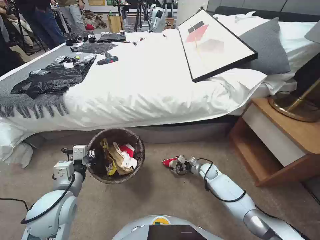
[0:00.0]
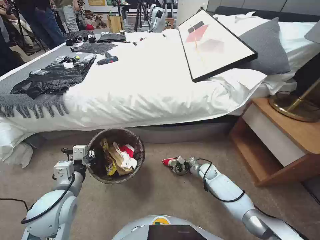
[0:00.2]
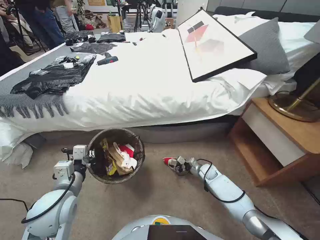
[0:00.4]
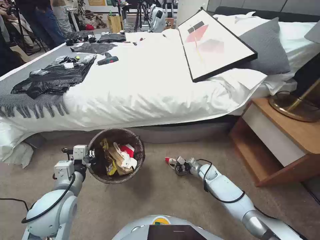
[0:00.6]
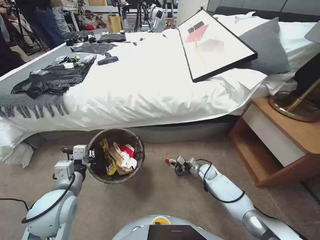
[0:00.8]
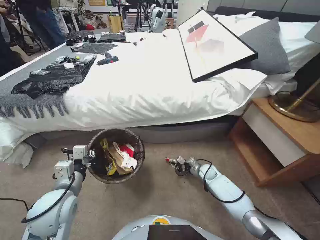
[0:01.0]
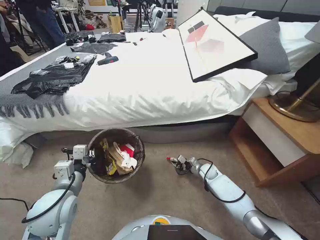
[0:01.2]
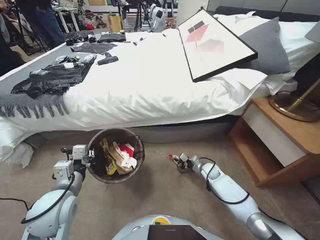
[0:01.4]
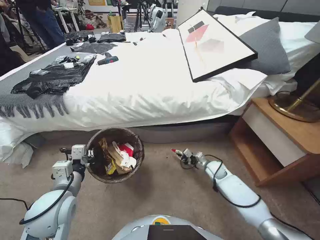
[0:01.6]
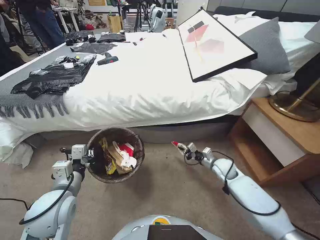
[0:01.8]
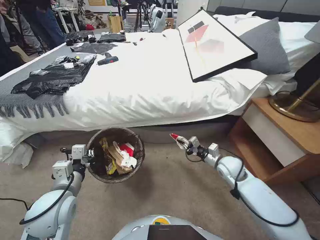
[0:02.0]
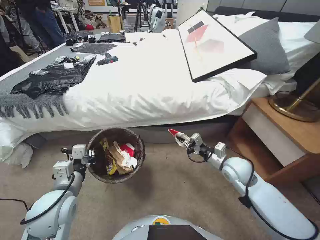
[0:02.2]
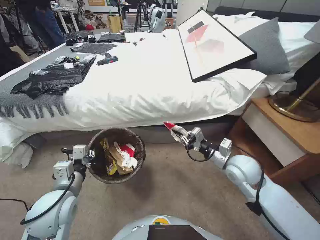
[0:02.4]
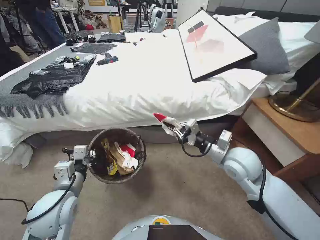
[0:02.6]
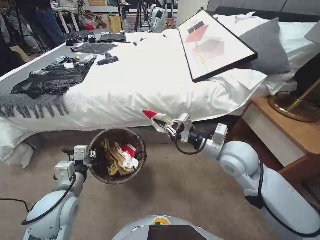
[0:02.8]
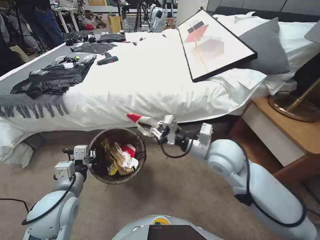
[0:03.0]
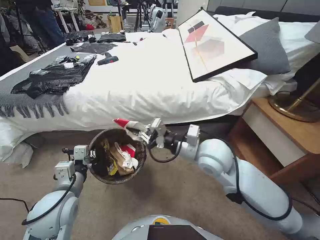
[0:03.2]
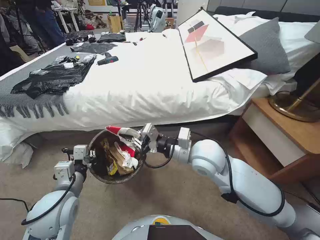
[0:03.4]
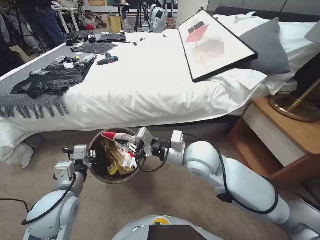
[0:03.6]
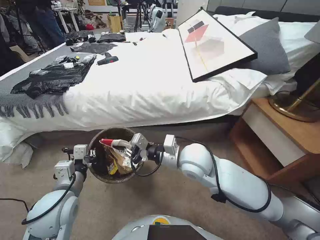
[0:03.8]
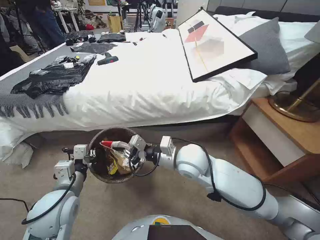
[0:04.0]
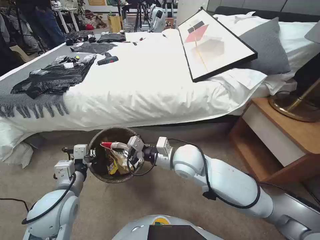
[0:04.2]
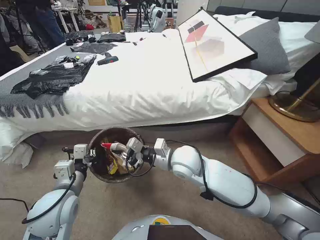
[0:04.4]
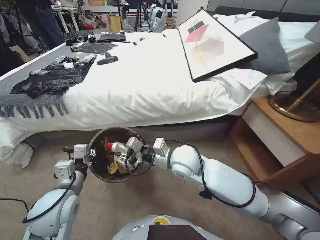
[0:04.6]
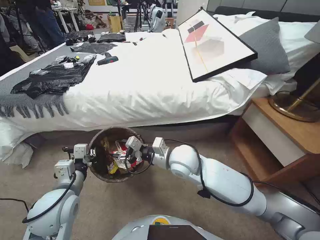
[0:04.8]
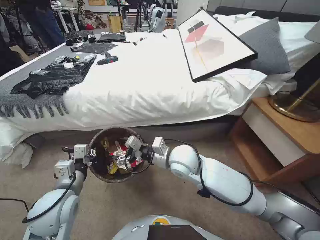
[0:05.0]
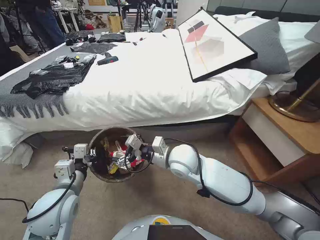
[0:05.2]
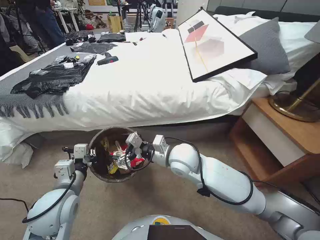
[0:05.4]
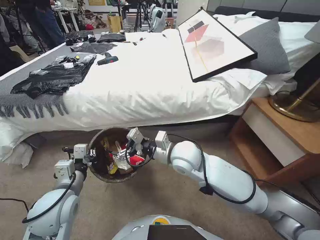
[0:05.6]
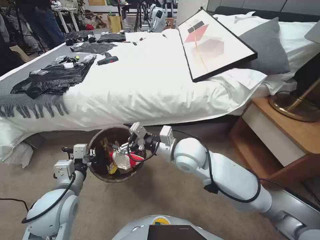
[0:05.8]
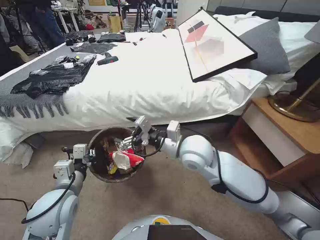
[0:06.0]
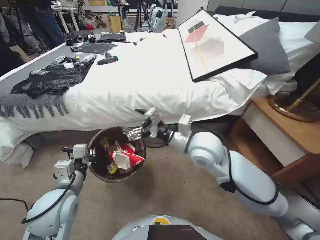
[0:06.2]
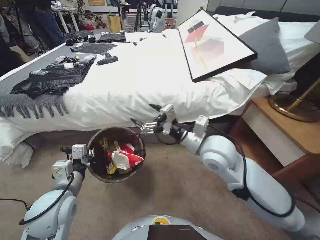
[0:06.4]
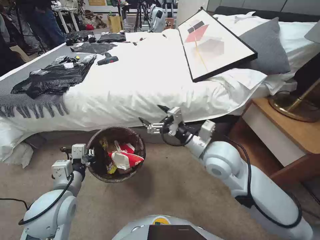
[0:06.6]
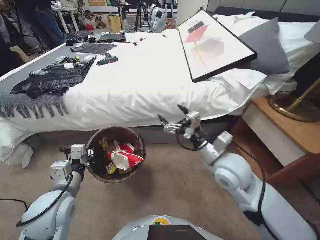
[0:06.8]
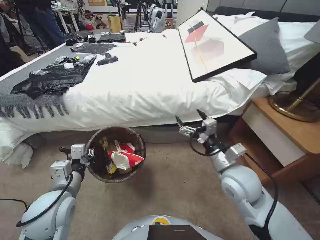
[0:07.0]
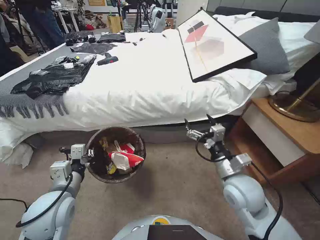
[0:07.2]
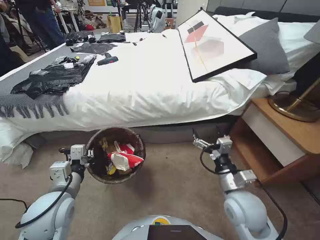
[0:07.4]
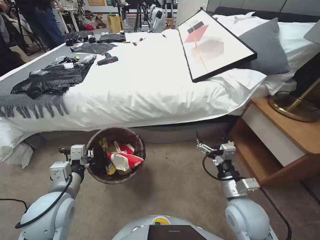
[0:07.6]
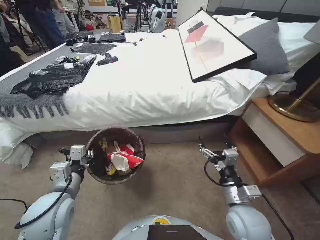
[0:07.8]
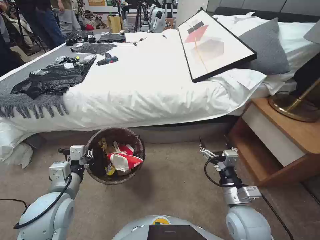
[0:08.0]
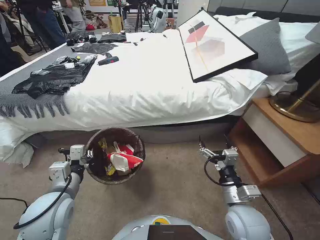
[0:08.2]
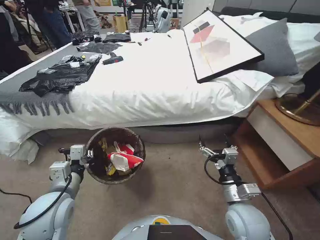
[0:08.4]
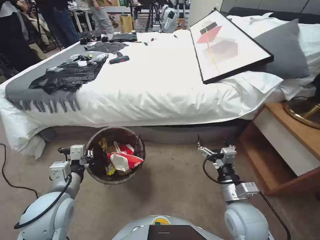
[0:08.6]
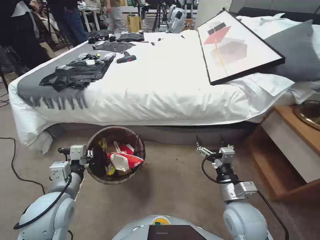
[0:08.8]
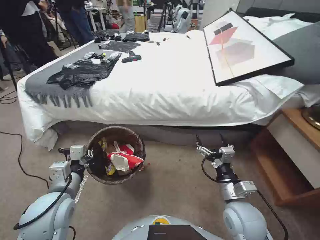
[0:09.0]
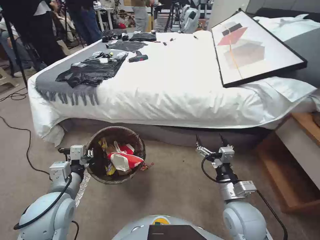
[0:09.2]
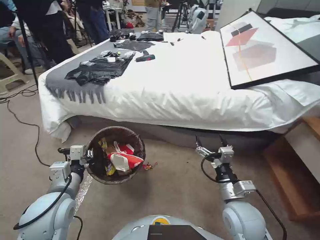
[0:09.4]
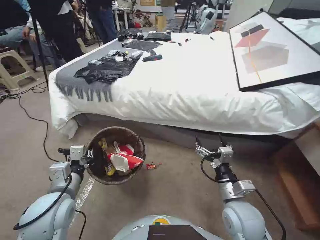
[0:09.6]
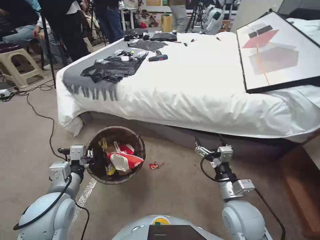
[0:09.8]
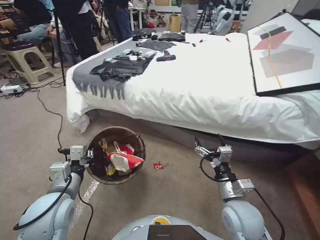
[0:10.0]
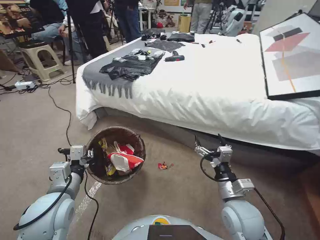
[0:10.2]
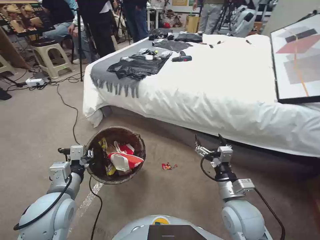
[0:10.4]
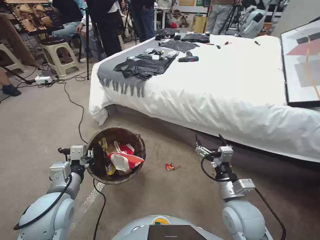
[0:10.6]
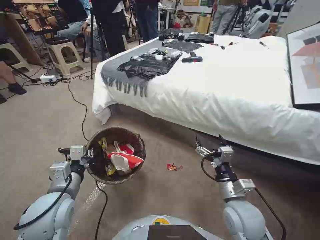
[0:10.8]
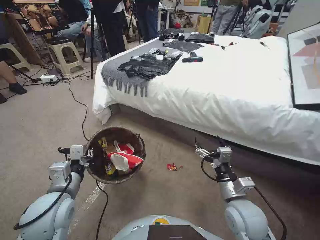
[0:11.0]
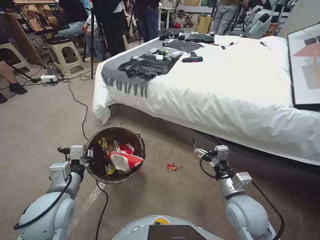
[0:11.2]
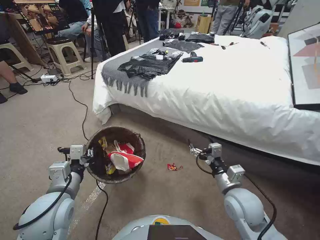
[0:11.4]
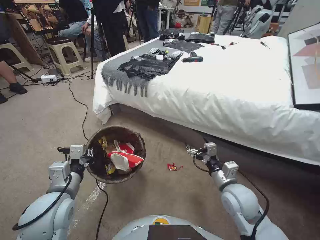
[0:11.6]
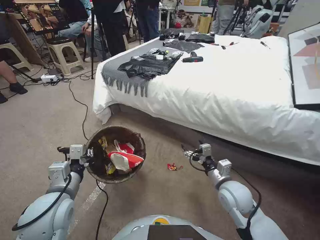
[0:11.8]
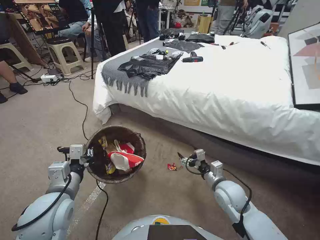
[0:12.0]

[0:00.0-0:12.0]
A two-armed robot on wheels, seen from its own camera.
Task of the whole recording: Pick up the trash bin, then pick up the garbage from the floor and place it into the trash bin.
0:00.0 to 0:01.6: The right gripper closes its fingers.
0:01.6 to 0:03.0: The right gripper is displaced upward by approximately 35 cm.
0:03.0 to 0:04.4: The right gripper goes some 15 cm to the left and downward.
0:04.4 to 0:06.0: The right gripper opens.
0:06.0 to 0:07.6: The right gripper shifts roughly 20 cm to the right, backward and downward.
0:10.4 to 0:12.0: The right gripper moves forward, approximately 5 cm.

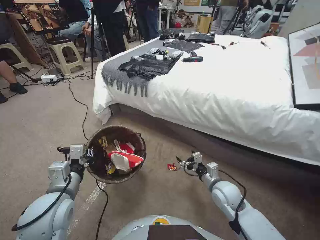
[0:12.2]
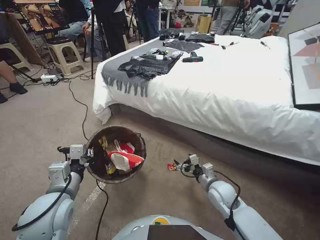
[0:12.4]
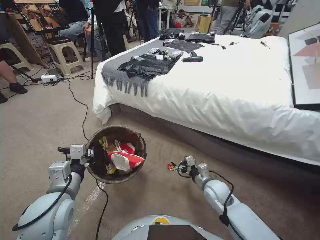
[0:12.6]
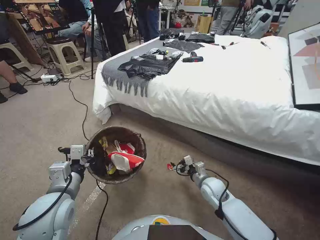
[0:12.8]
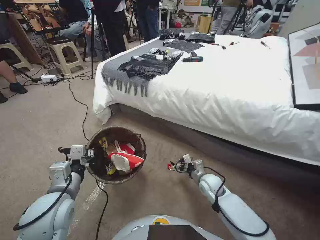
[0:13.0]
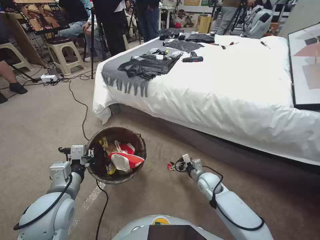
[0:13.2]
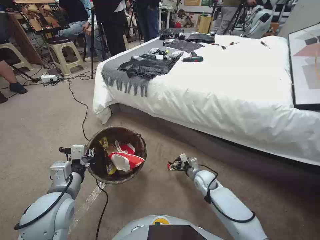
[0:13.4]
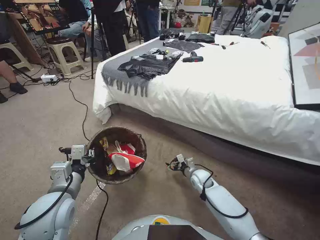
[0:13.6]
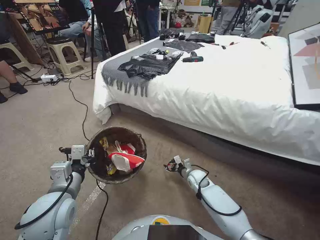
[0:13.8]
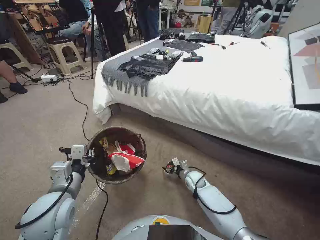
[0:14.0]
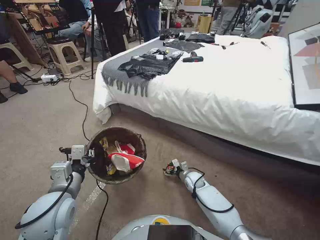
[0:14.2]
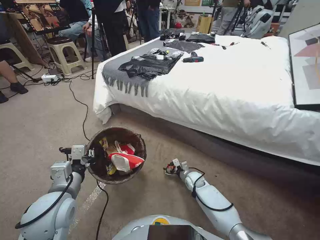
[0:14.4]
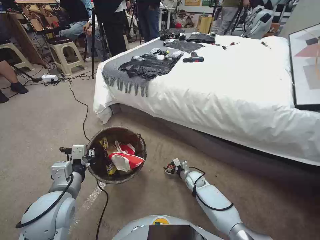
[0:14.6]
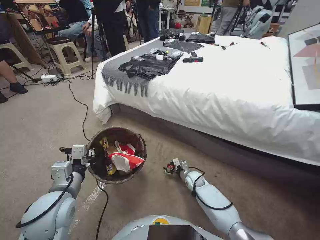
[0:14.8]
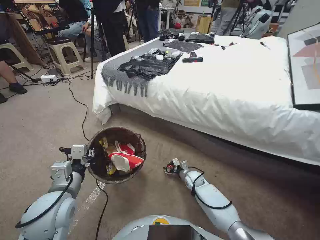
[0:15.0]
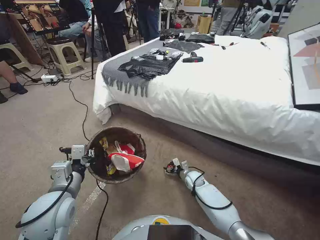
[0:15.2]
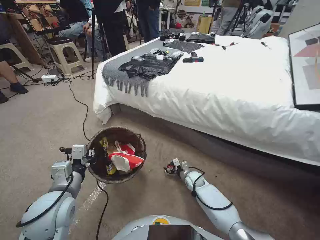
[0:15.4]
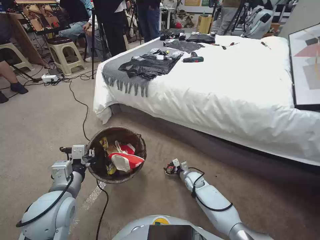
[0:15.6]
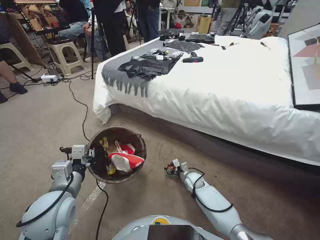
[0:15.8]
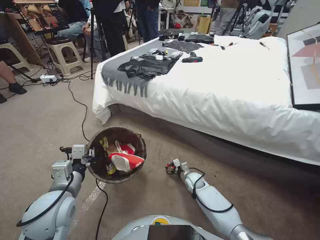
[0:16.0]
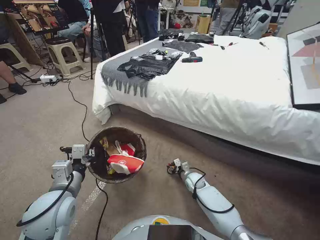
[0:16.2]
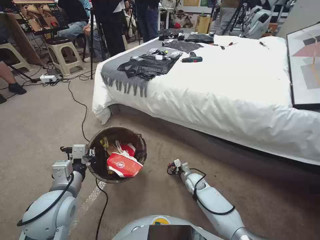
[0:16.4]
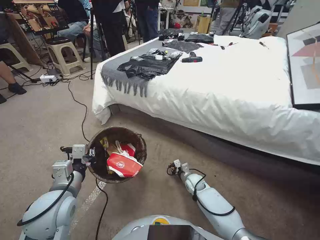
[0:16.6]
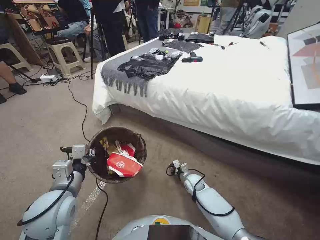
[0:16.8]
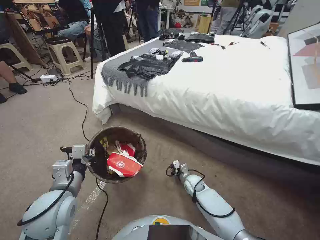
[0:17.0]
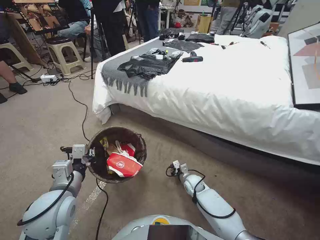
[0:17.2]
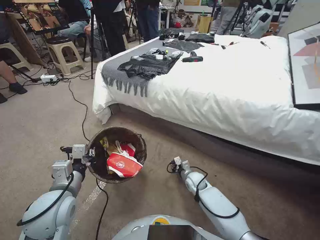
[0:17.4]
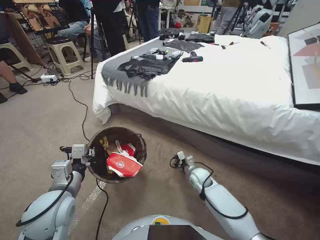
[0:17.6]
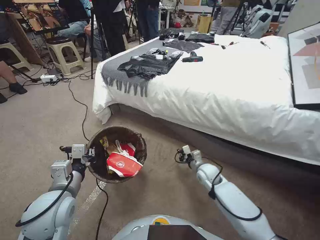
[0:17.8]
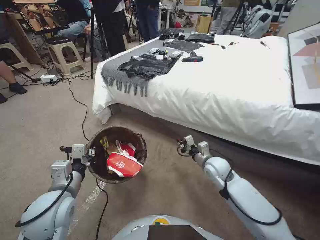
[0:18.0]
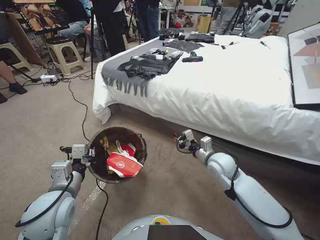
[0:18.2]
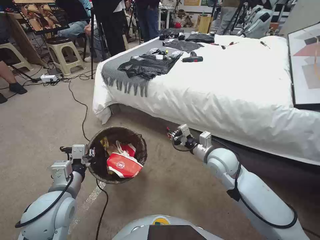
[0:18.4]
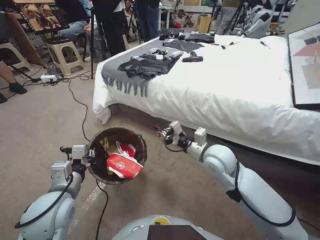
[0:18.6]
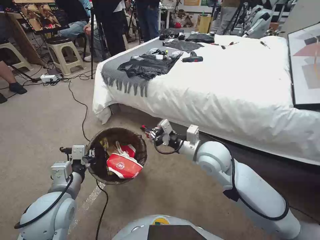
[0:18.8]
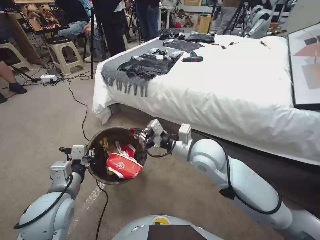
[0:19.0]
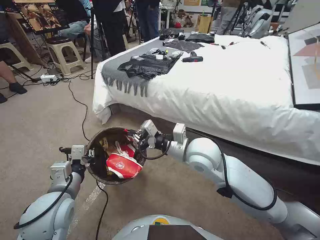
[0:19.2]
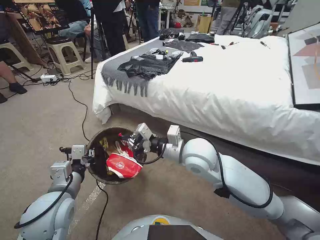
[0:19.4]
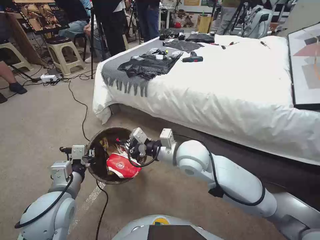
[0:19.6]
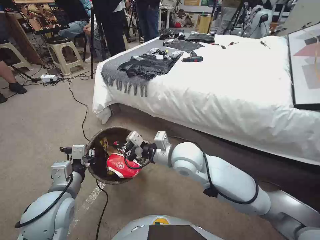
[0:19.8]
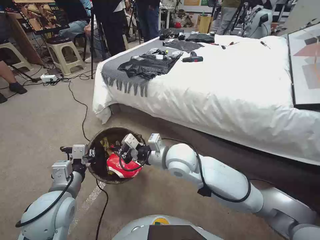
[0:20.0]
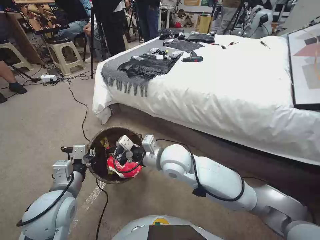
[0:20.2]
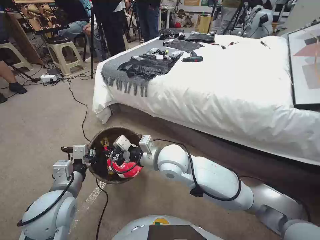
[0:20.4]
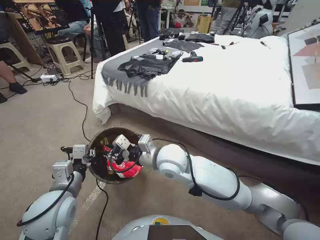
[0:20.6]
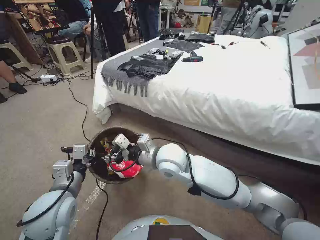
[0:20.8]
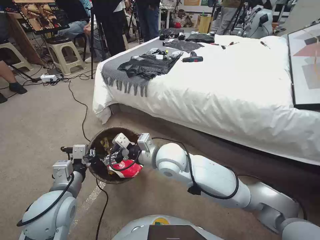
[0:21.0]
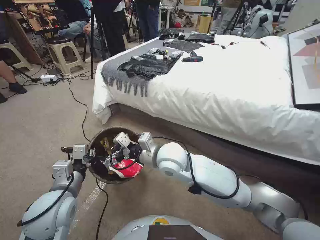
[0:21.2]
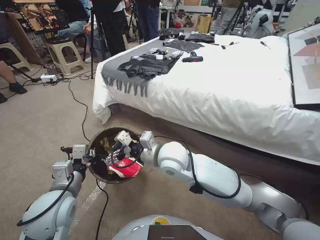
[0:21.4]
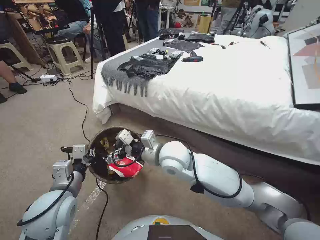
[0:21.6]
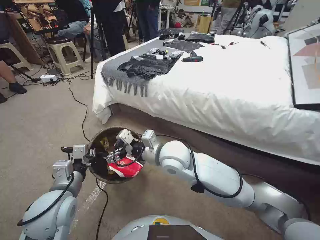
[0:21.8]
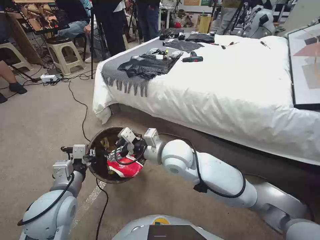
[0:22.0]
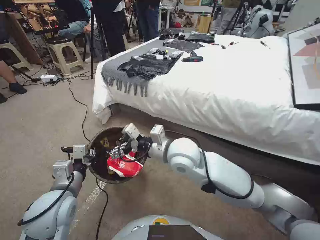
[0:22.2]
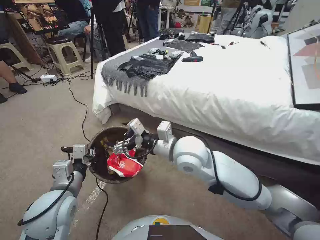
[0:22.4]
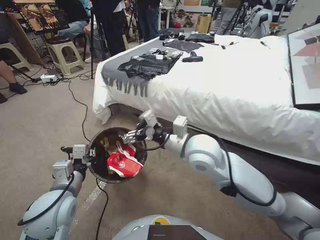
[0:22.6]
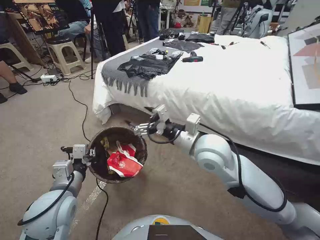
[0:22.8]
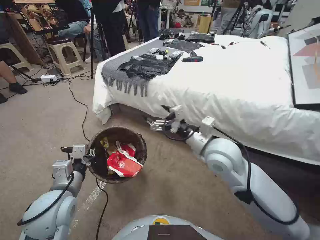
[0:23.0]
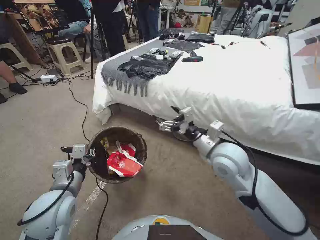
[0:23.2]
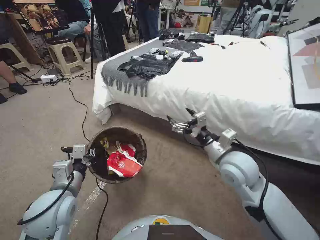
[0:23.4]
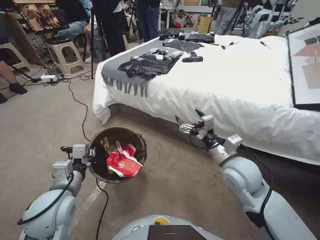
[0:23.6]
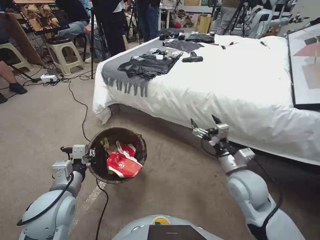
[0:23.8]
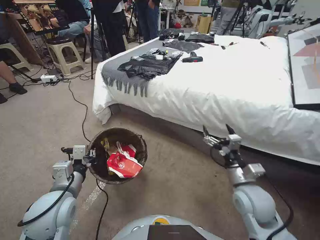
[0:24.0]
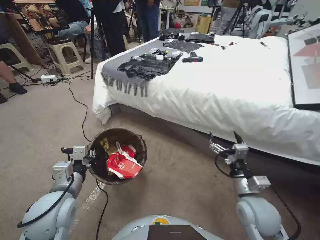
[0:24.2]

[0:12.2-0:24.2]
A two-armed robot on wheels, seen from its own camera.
Task of the whole recording: Pick up the trash bin, then pick up the garbage from the floor and place it into the trash bin.
0:12.2 to 0:13.8: The right gripper goes roughly 15 cm downward and forward.
0:13.8 to 0:15.2: The right gripper goes some 5 cm downward.
0:15.2 to 0:16.6: The right gripper closes up.
0:16.6 to 0:18.2: The right gripper is displaced upward by approximately 25 cm, and closes.
0:18.2 to 0:19.8: The right gripper is displaced to the left and upward by some 20 cm.
0:19.8 to 0:21.2: The right gripper is displaced to the left by about 5 cm, and opens up.
0:21.2 to 0:22.6: The right gripper shifts about 10 cm to the right and upward.
0:22.6 to 0:24.2: The right gripper shifts roughly 25 cm to the right, downward and backward.
